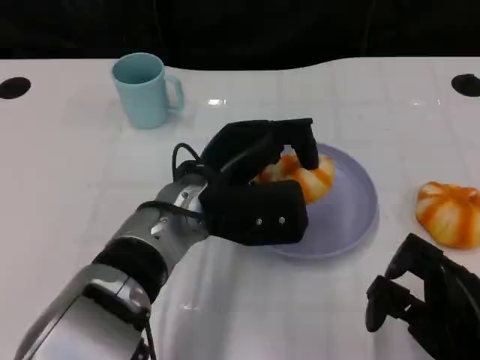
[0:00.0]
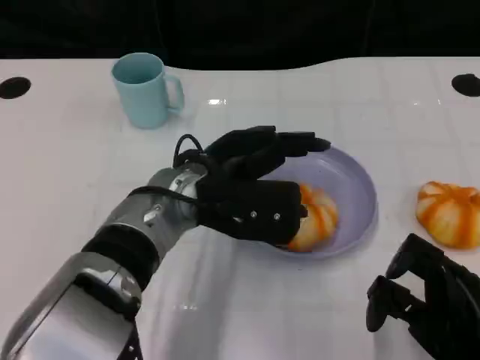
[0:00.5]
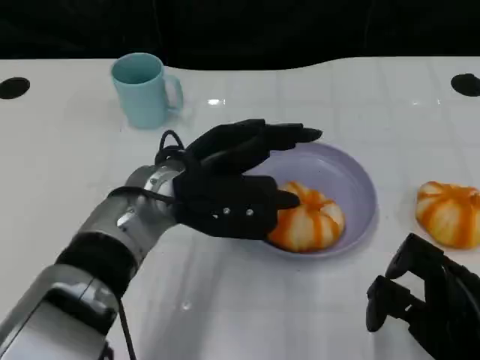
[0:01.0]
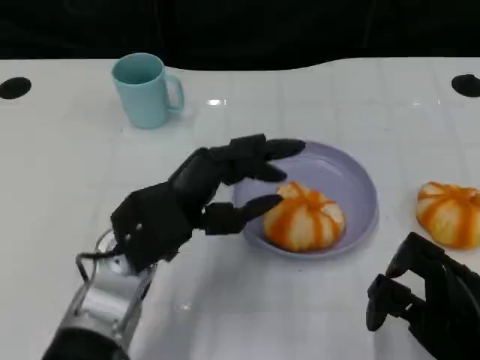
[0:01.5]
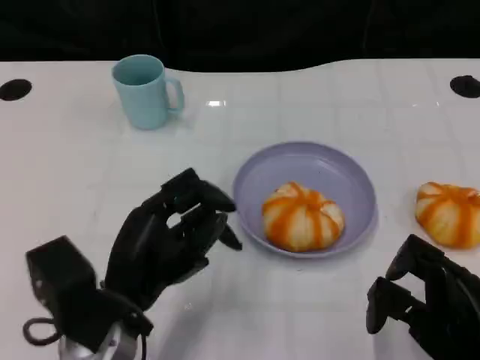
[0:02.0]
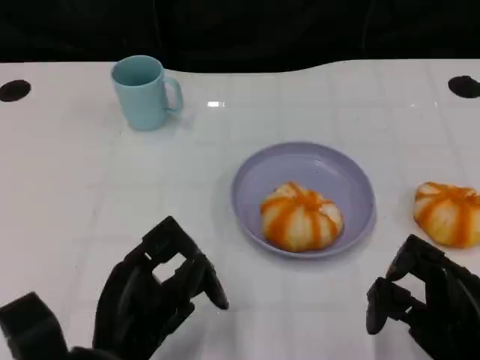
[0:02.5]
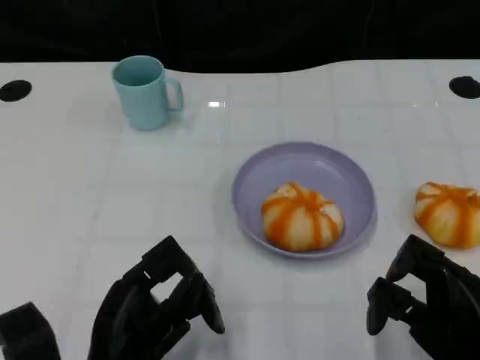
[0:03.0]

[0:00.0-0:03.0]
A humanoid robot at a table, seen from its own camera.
Task of the whole recording: Grasp the bread from the table and place it into the plate.
0.0 to 1.5 s: The left hand moves to the left, about 5 cm.
1.5 to 3.0 s: The left hand travels backward and downward by some 10 cm.

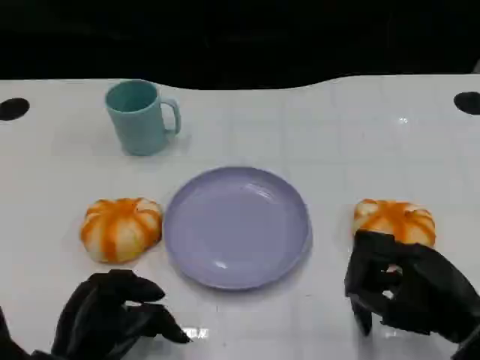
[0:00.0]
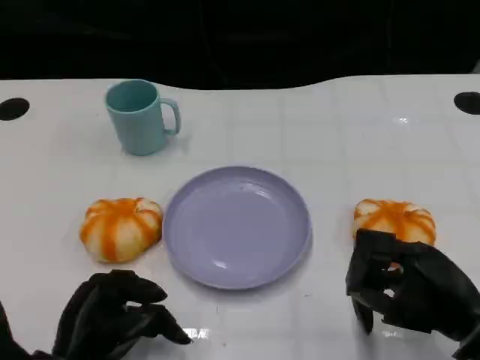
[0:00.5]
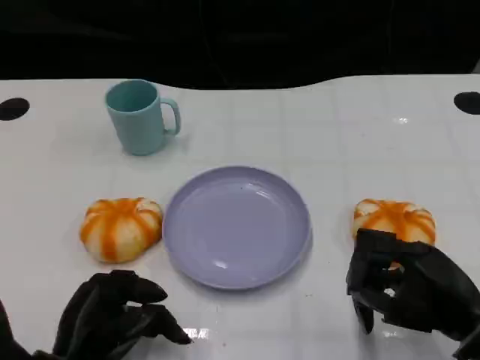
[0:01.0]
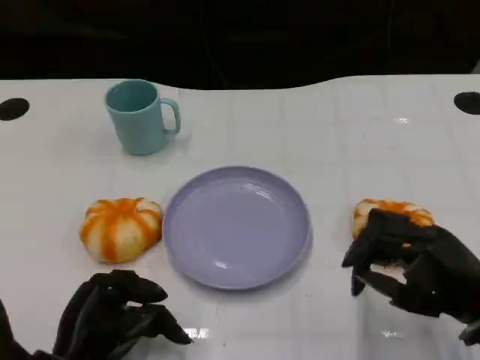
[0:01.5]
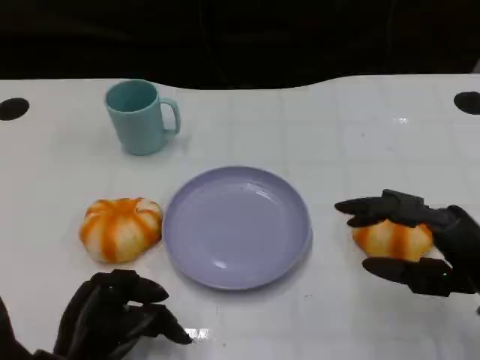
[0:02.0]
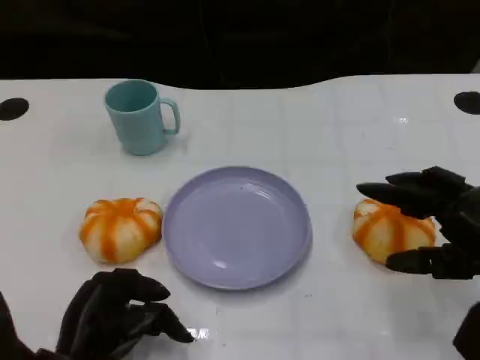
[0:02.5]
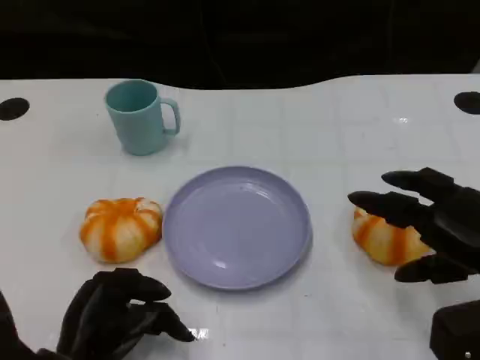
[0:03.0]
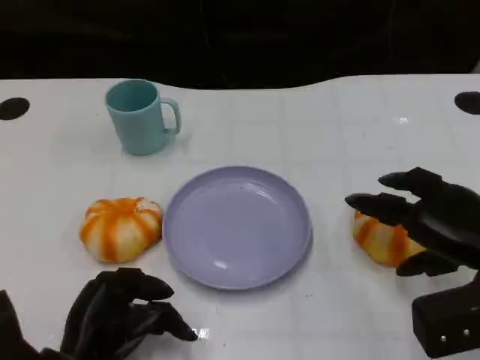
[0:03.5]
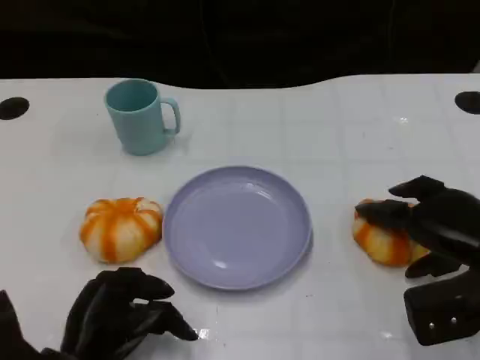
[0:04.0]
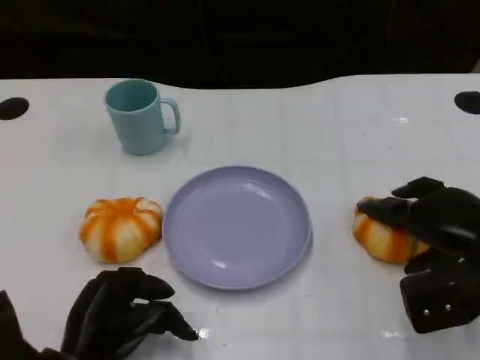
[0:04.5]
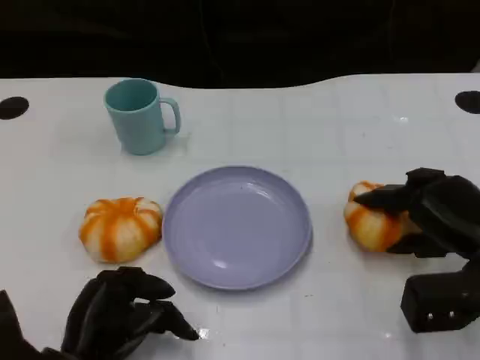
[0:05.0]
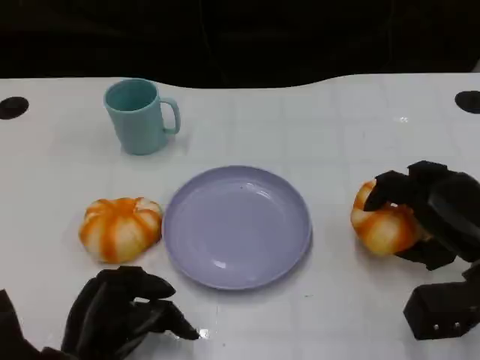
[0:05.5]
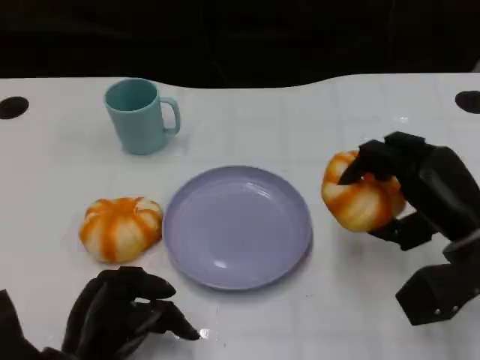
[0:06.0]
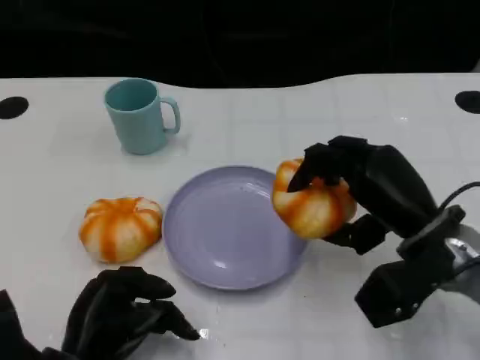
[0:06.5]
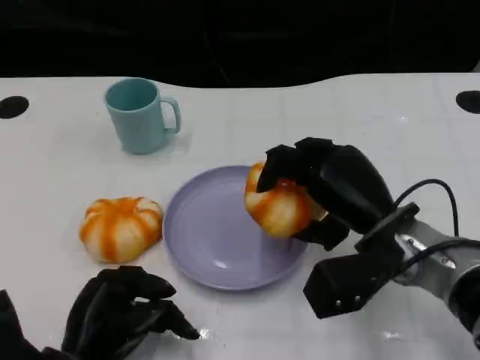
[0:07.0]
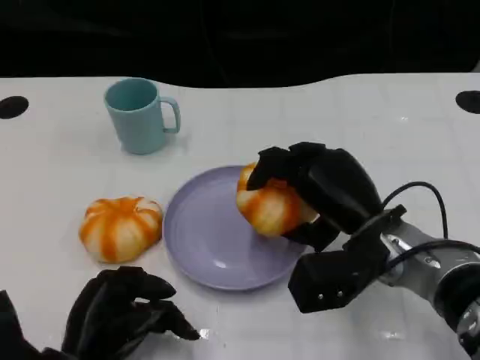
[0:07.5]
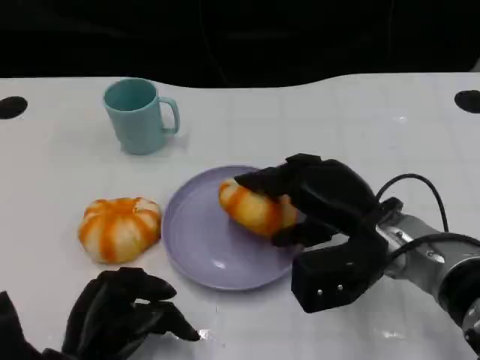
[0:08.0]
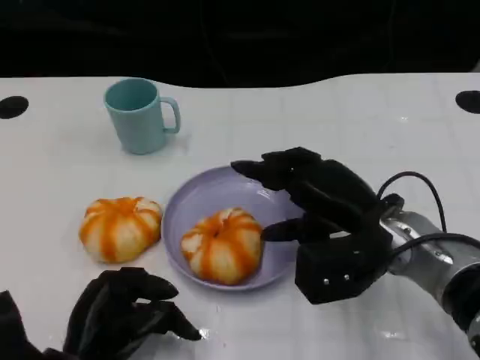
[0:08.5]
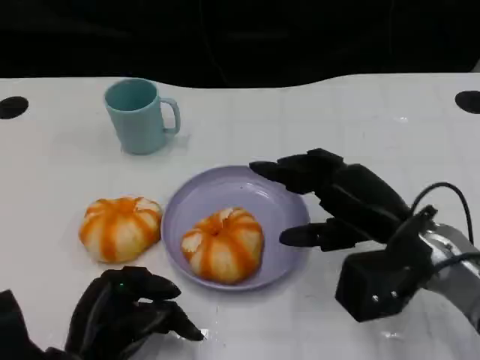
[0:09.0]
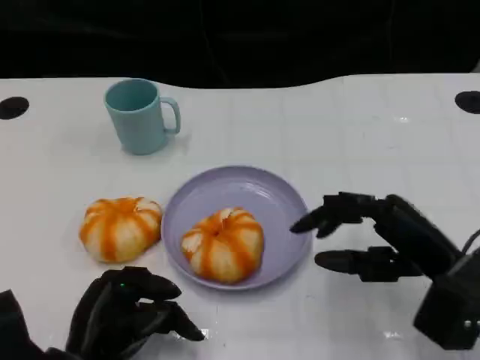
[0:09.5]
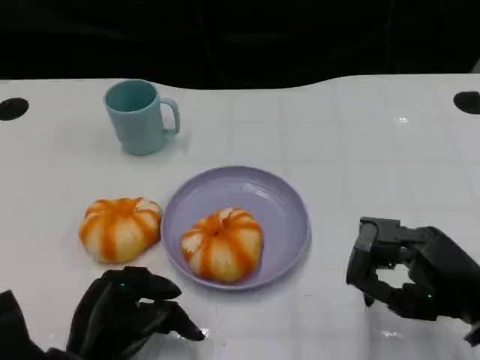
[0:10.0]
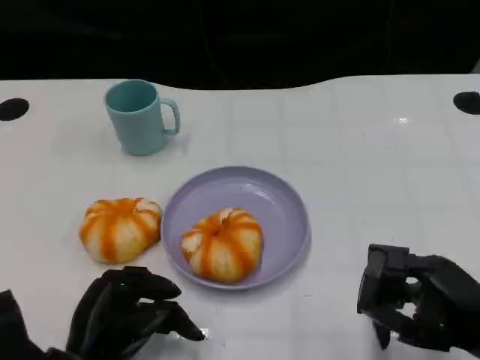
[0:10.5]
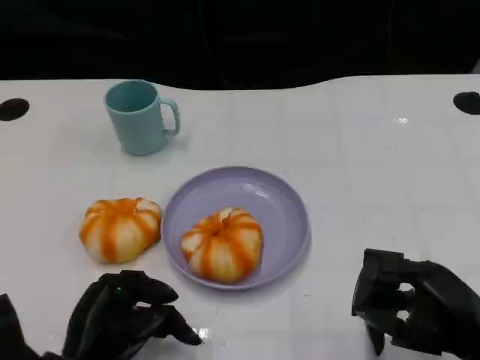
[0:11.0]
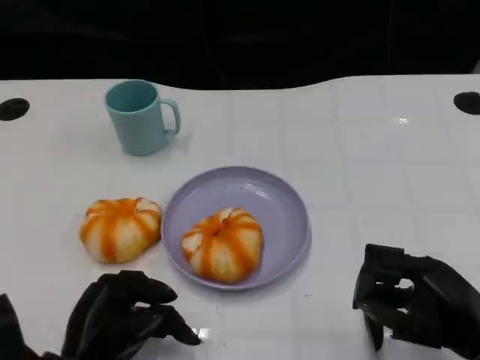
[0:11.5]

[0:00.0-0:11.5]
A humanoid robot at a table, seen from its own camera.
Task of the whole recording: Grasp the bread from the table and place it into the plate.
2.0 to 4.0 s: The right hand is displaced forward by roughly 5 cm.
6.0 to 7.5 s: The right hand is displaced to the left by about 10 cm.
7.5 to 9.5 s: The right hand goes approximately 10 cm to the right.
9.5 to 11.5 s: The right hand goes roughly 5 cm backward.

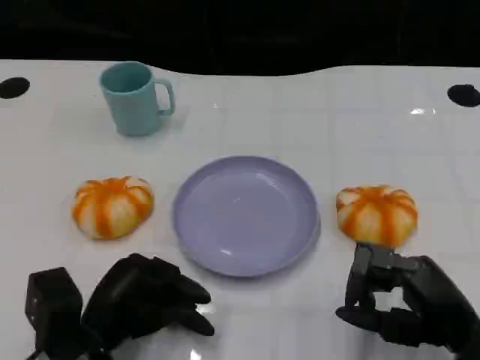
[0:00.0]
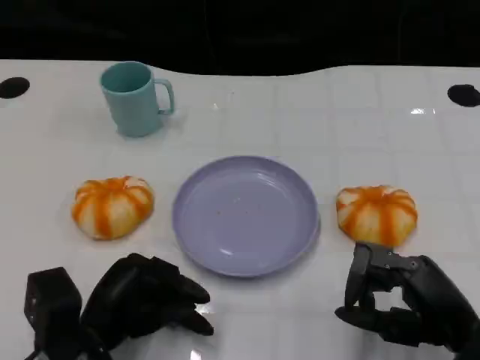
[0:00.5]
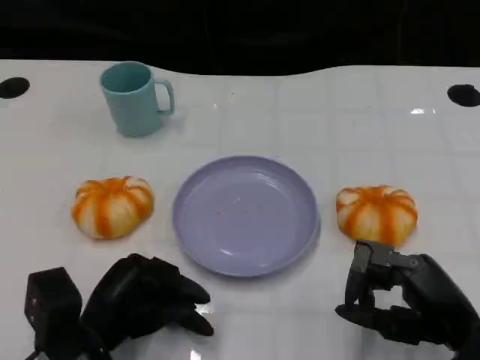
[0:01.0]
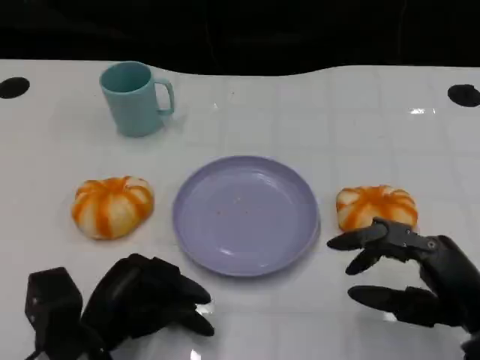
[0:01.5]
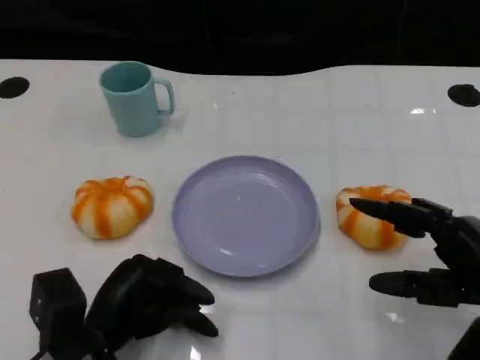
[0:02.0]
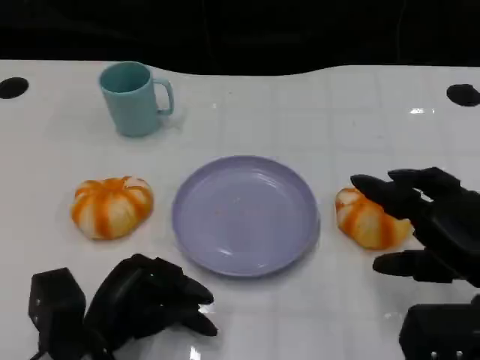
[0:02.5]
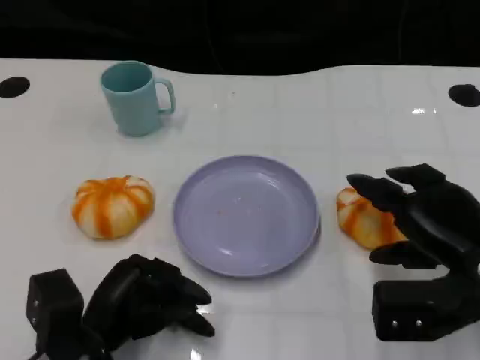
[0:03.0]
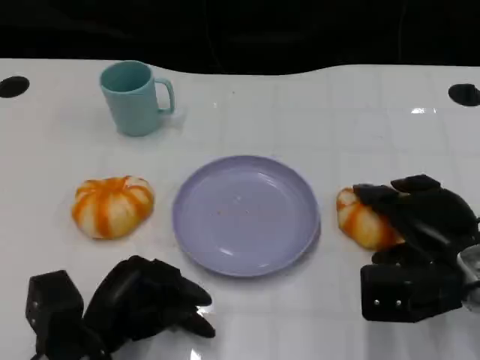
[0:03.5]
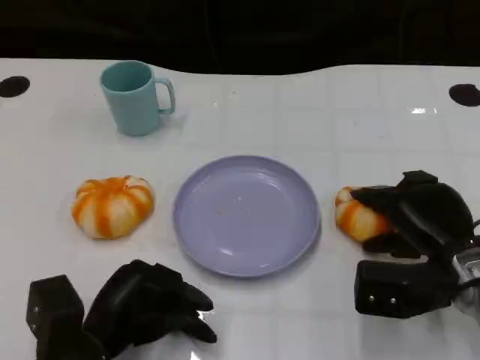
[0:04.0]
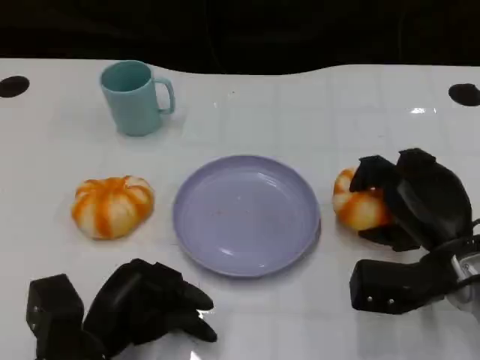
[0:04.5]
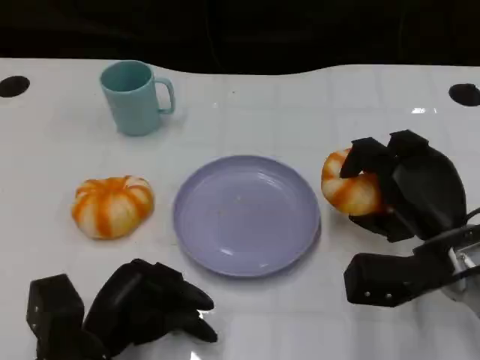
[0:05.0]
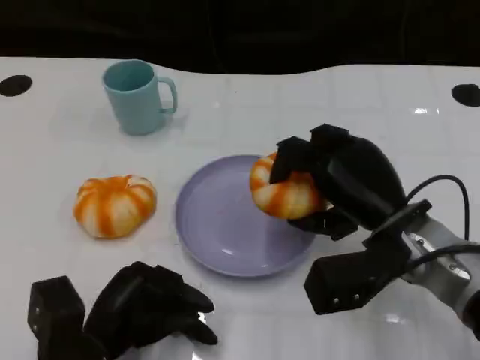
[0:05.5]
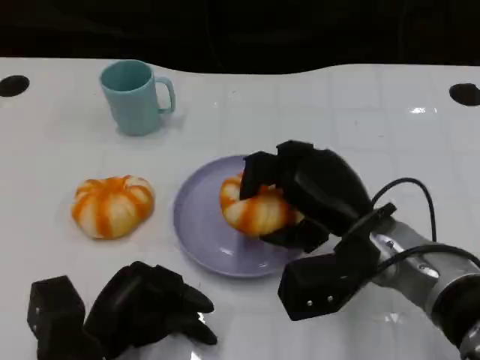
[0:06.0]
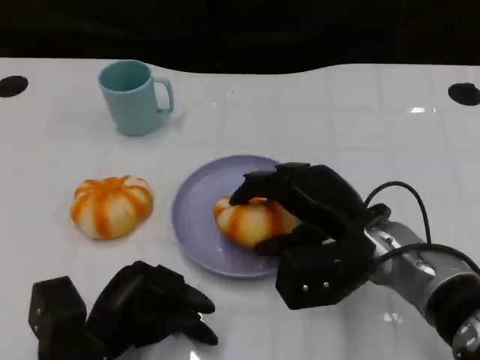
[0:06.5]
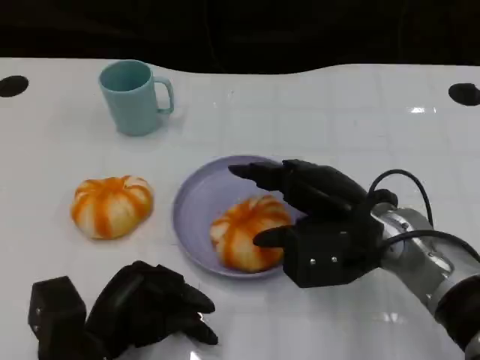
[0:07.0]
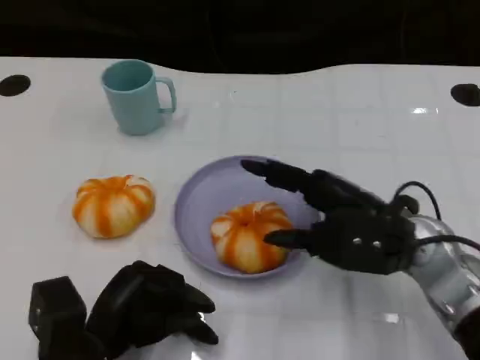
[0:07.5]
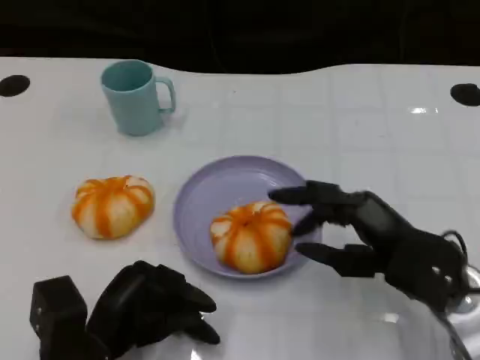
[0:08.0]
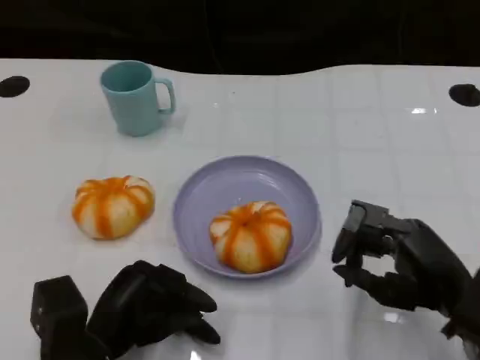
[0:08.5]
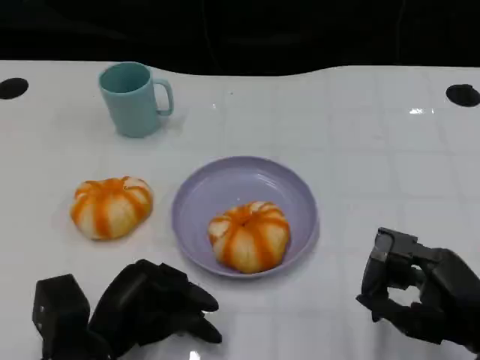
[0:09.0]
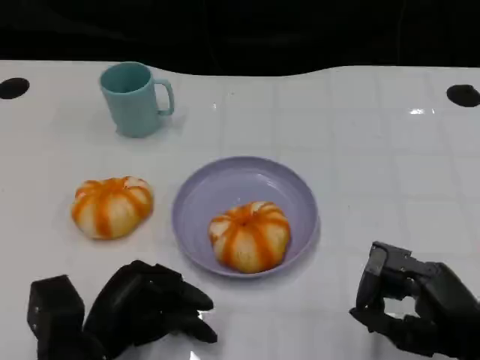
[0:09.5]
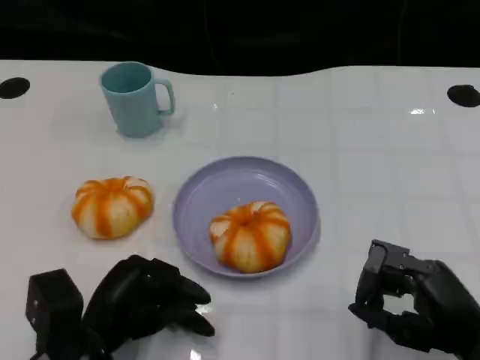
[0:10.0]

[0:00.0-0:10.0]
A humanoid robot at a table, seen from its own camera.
Task of the whole recording: Grasp the bread from the table and place it into the plate.
0.0 to 2.0 s: The right hand shifts by approximately 5 cm.
2.0 to 4.0 s: The right hand goes some 5 cm forward.
4.0 to 6.0 s: The right hand moves to the left, some 10 cm.
6.0 to 8.0 s: The right hand travels to the right by approximately 5 cm.
8.0 to 10.0 s: The right hand goes about 5 cm backward.

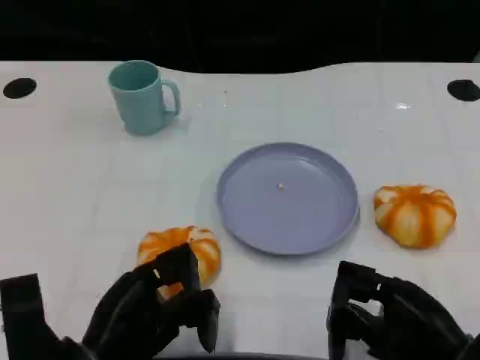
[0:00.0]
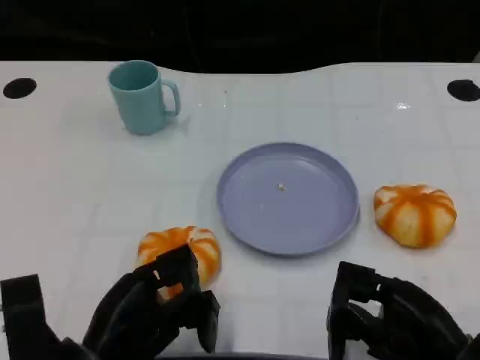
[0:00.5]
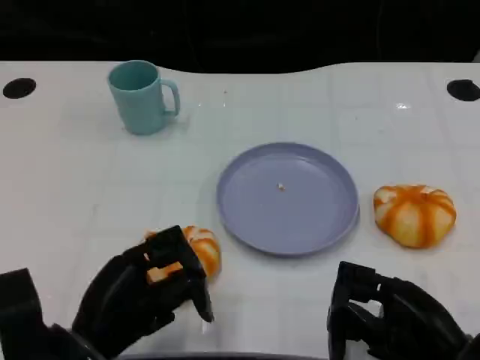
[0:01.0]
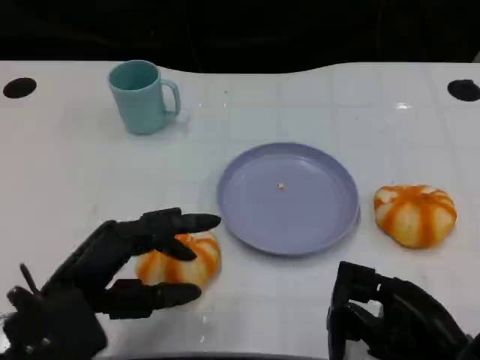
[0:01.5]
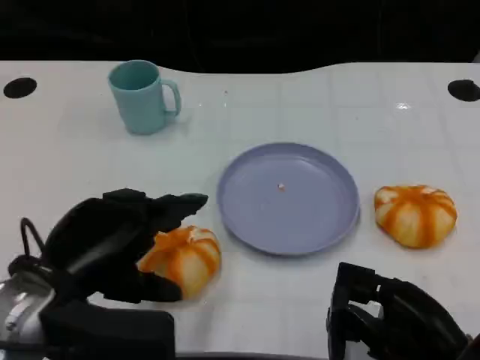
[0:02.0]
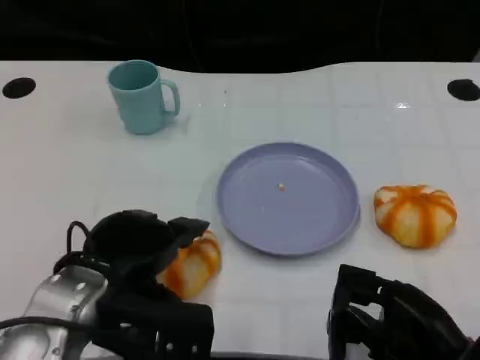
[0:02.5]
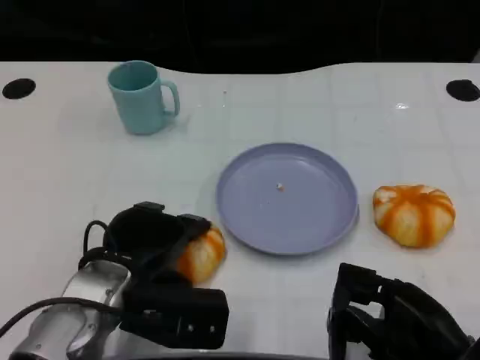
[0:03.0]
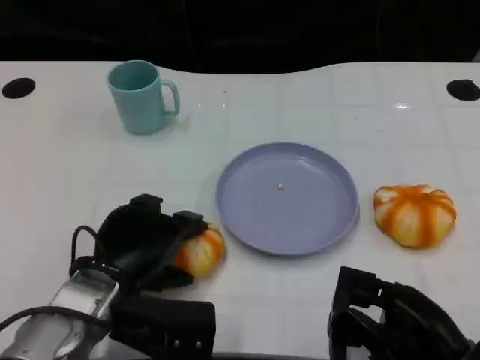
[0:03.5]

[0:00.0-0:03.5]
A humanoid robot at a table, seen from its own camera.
Task of the whole recording: Grasp the bread from the table and place it into the plate.
0.0 to 2.0 s: The left hand is displaced upward by approximately 10 cm.
2.0 to 3.5 s: The left hand goes about 5 cm downward.
